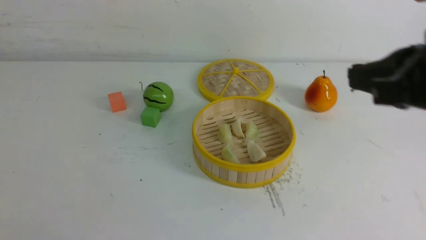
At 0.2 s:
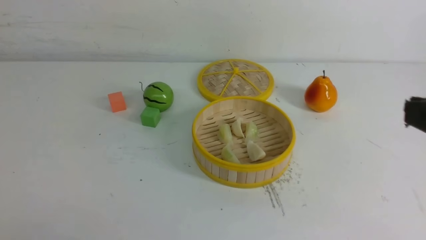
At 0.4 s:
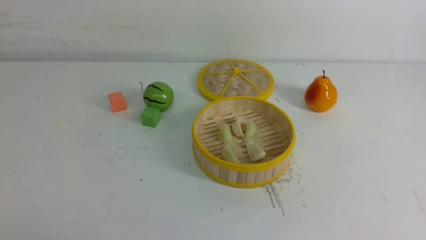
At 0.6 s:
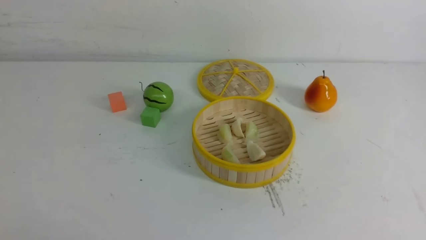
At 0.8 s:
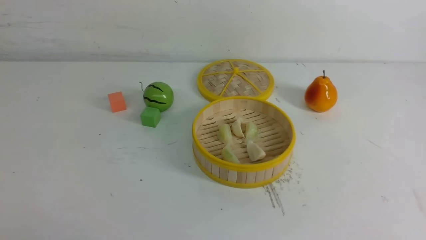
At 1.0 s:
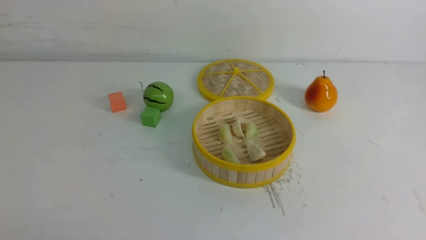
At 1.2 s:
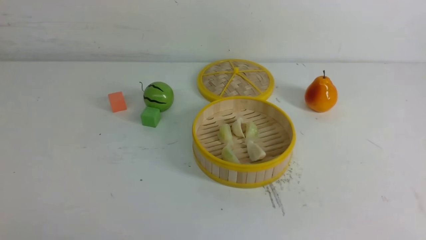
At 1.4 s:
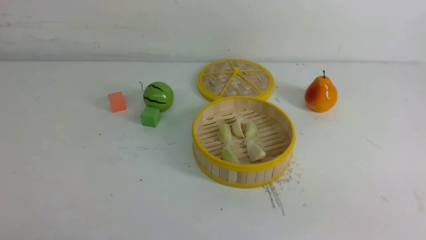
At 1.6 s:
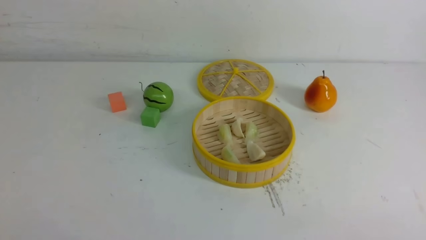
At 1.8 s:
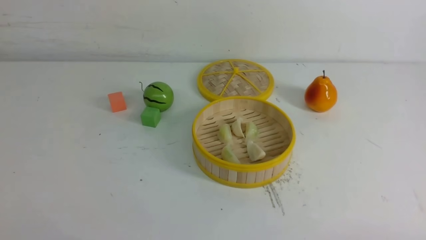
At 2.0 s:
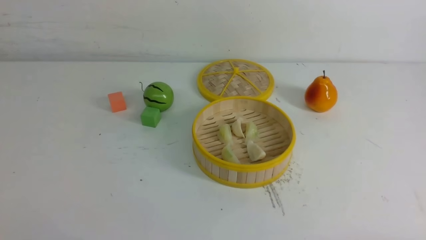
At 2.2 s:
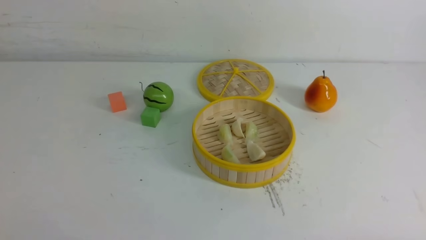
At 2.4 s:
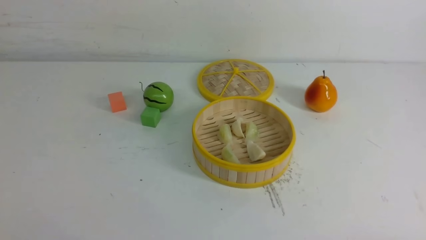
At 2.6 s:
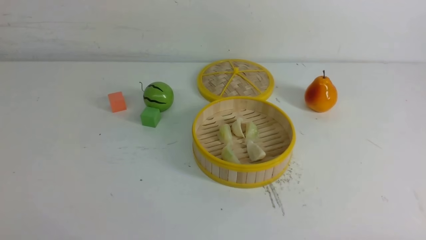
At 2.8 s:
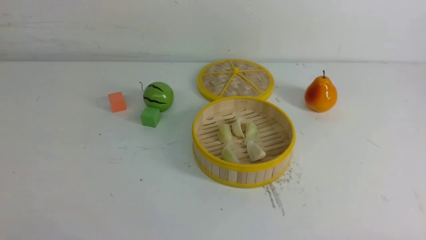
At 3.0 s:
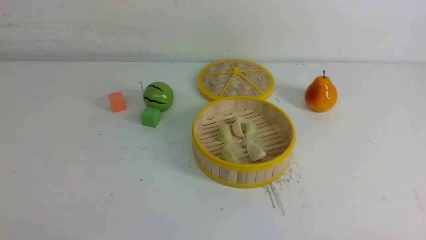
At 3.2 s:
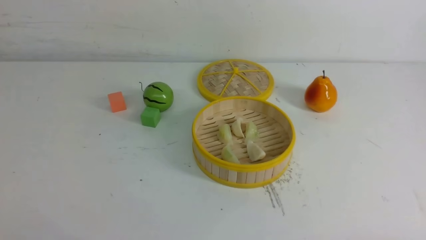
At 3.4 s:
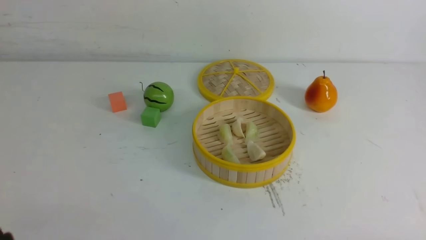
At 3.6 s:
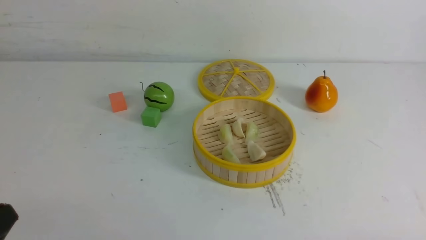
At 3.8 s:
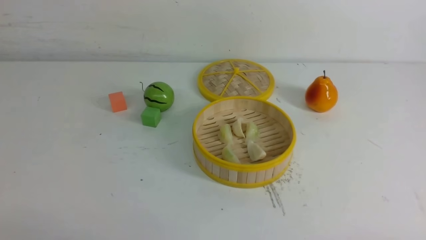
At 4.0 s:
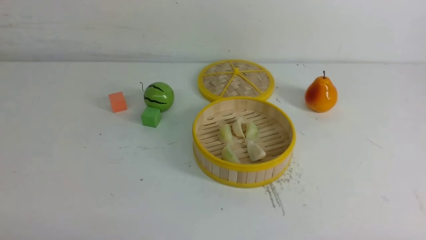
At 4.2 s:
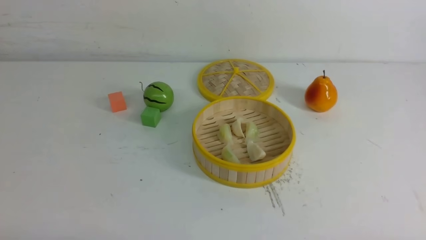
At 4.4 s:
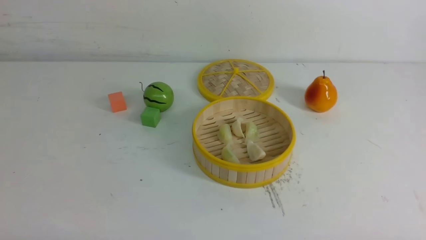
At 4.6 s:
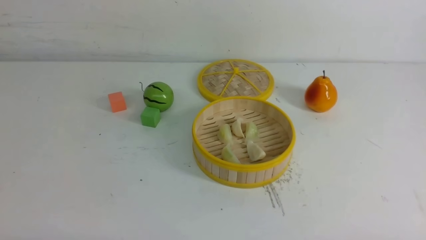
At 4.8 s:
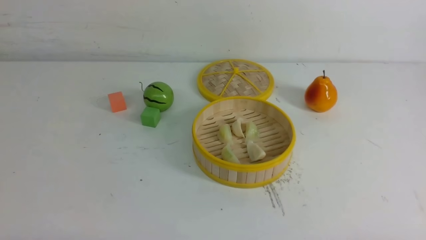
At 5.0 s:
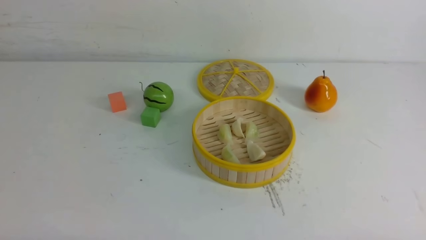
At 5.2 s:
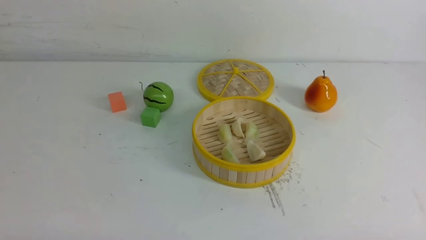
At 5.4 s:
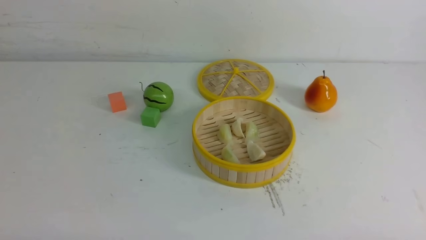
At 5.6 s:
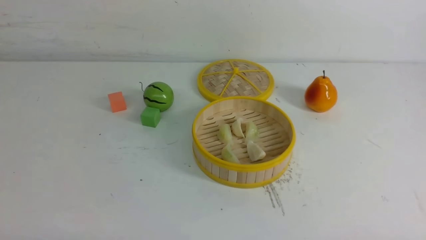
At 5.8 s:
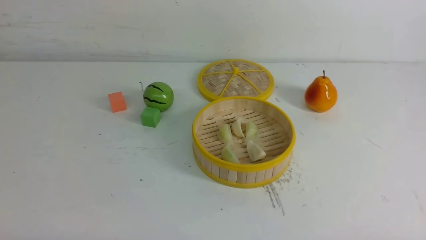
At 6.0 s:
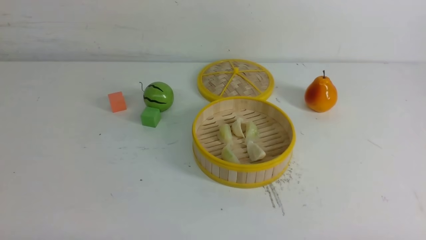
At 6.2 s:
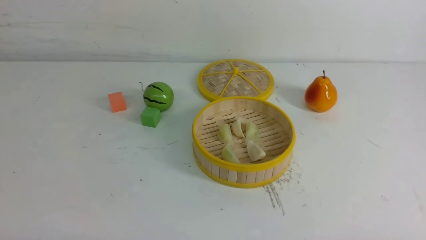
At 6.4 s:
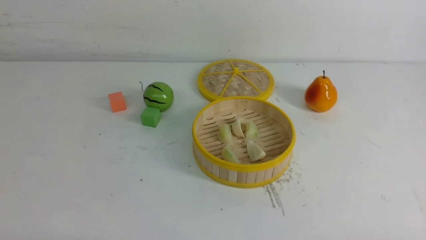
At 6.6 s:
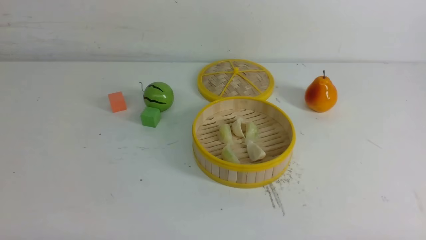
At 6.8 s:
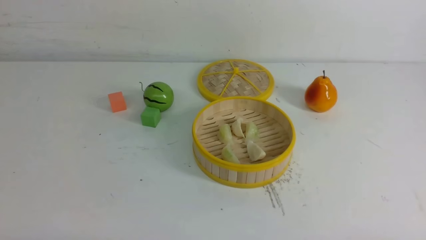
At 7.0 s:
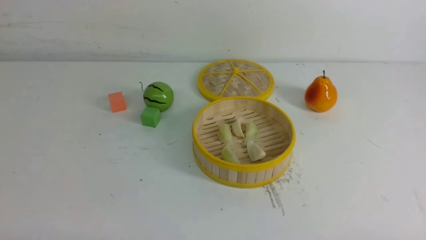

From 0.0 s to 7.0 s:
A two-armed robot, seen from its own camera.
Task of the whole recording: put the dumplings into the steamer on the white table.
From 0.0 s to 1.4 s: The right gripper is displaced downward, backward and to the right by some 20 cm.
From 5.6 s to 7.0 s: Neither gripper changes place.

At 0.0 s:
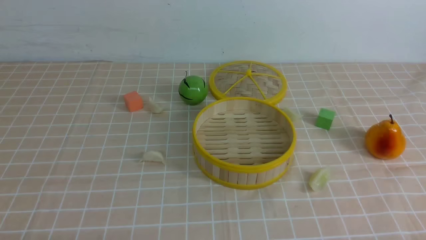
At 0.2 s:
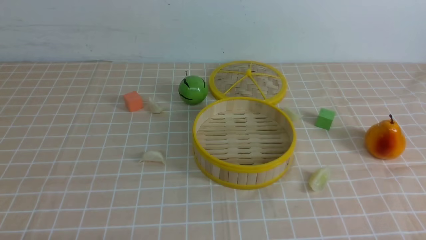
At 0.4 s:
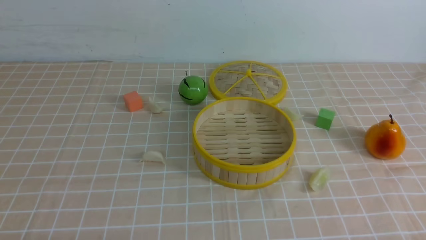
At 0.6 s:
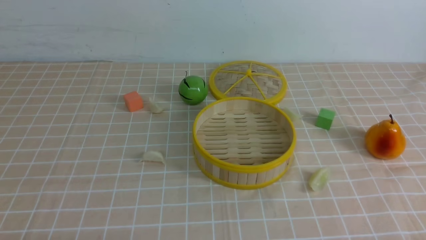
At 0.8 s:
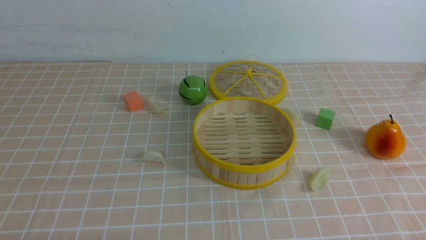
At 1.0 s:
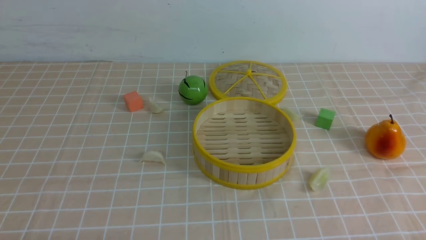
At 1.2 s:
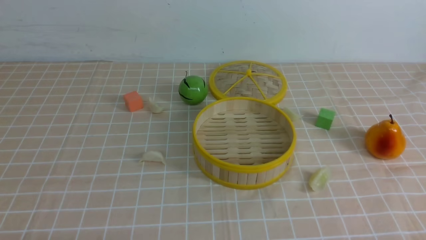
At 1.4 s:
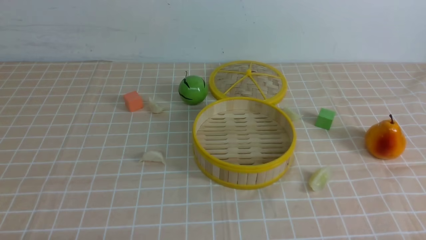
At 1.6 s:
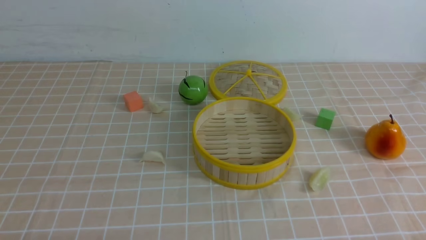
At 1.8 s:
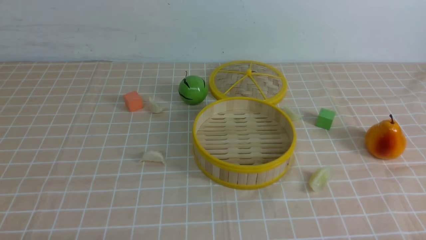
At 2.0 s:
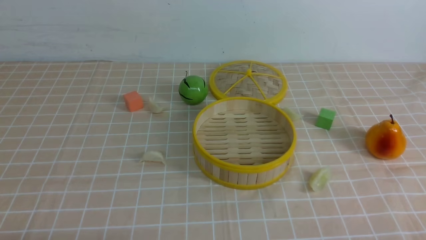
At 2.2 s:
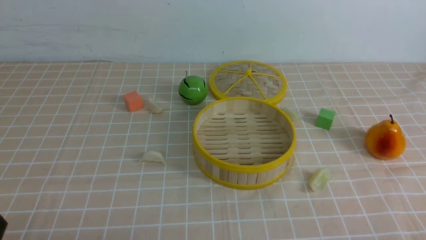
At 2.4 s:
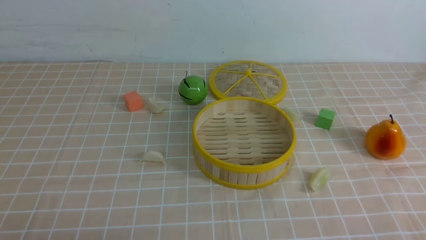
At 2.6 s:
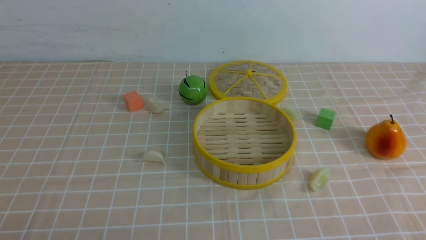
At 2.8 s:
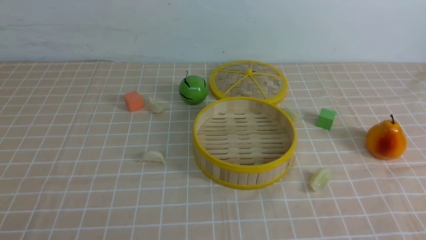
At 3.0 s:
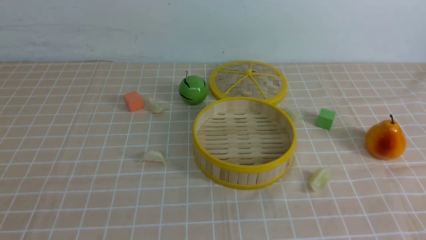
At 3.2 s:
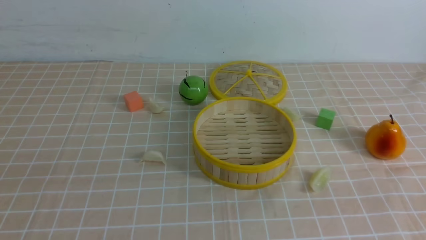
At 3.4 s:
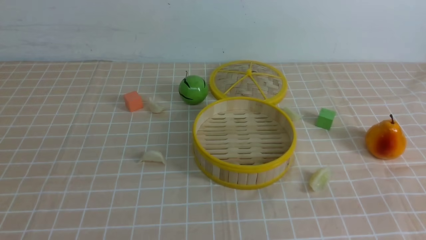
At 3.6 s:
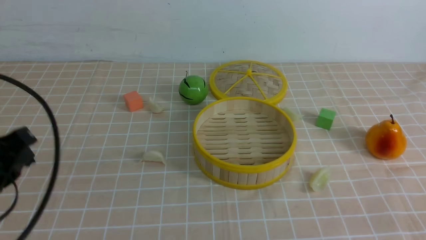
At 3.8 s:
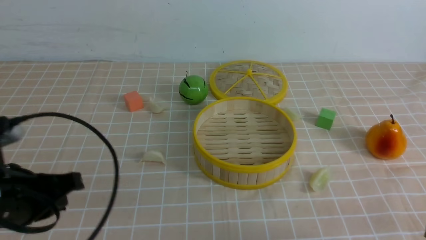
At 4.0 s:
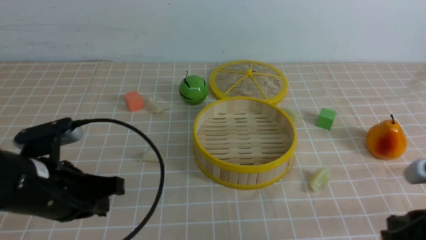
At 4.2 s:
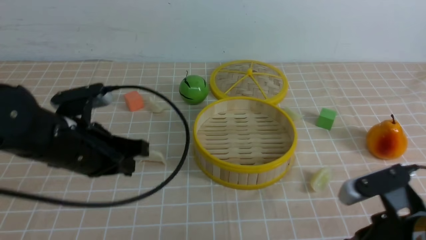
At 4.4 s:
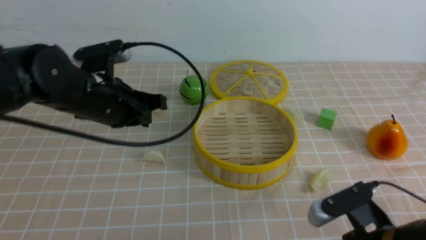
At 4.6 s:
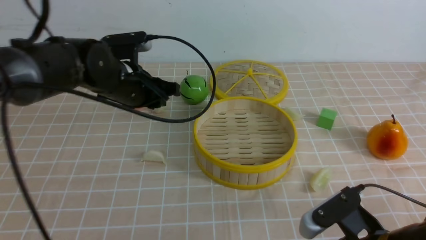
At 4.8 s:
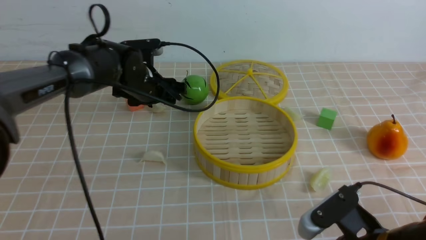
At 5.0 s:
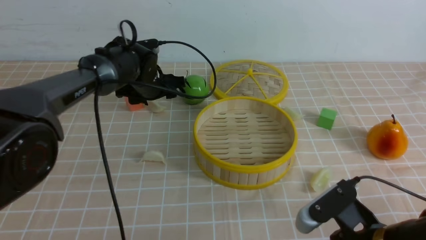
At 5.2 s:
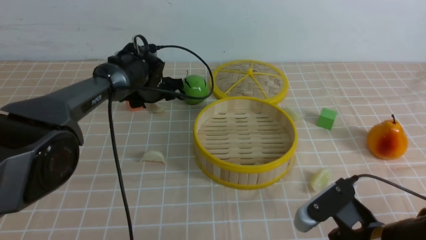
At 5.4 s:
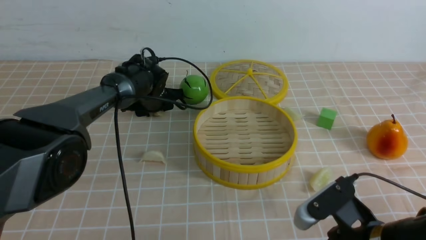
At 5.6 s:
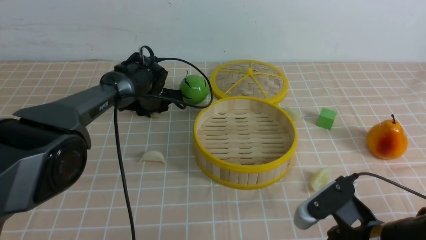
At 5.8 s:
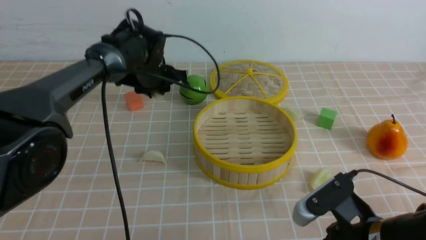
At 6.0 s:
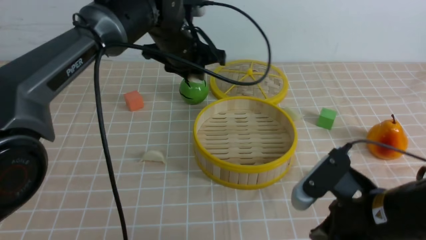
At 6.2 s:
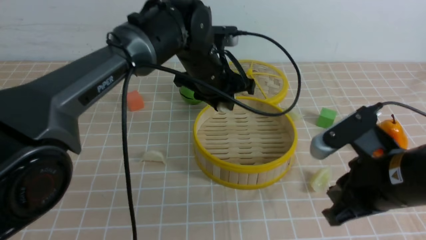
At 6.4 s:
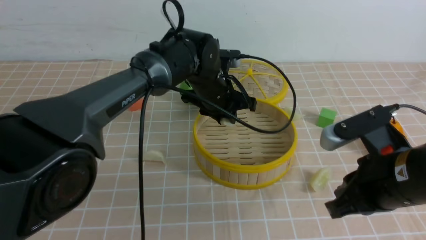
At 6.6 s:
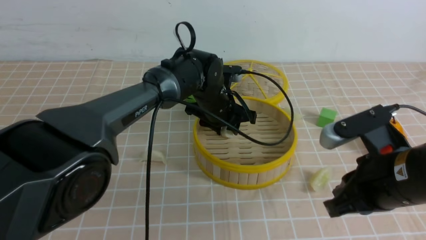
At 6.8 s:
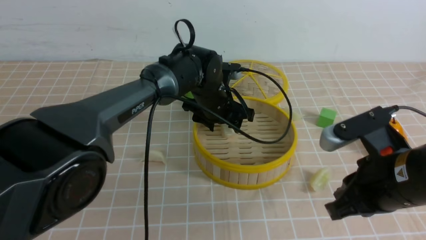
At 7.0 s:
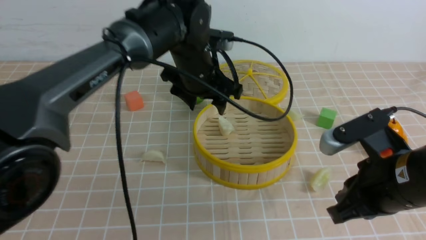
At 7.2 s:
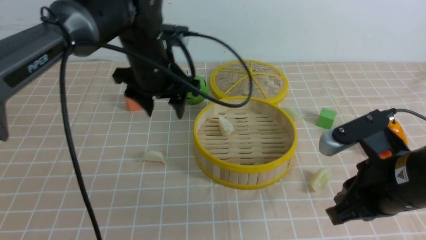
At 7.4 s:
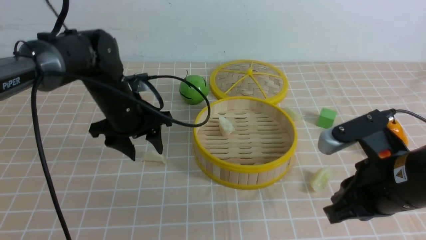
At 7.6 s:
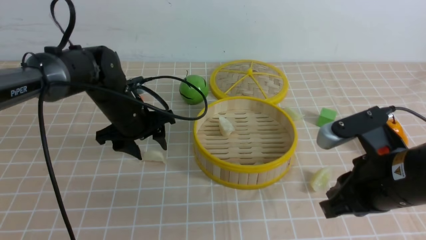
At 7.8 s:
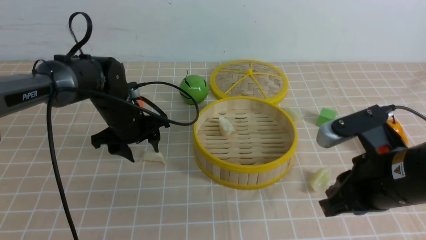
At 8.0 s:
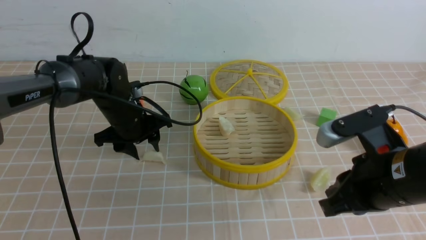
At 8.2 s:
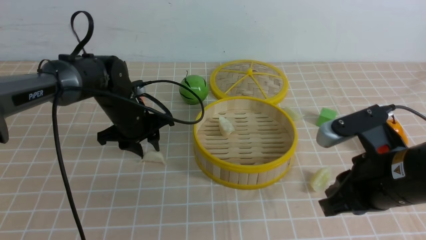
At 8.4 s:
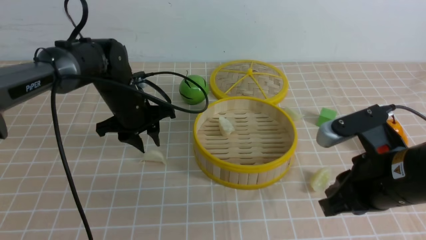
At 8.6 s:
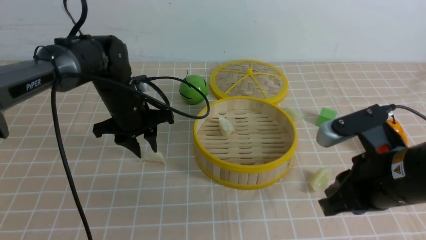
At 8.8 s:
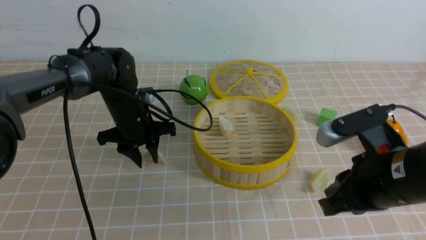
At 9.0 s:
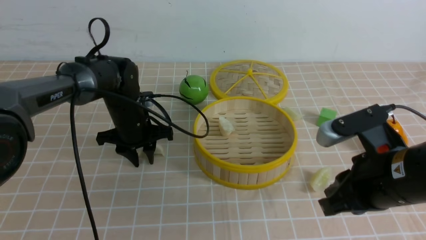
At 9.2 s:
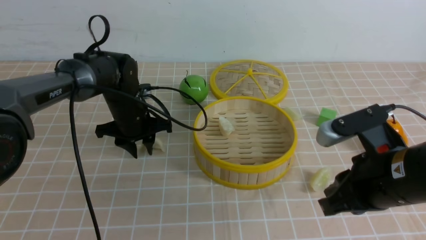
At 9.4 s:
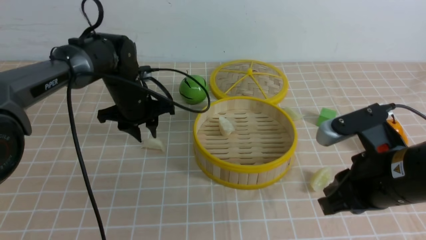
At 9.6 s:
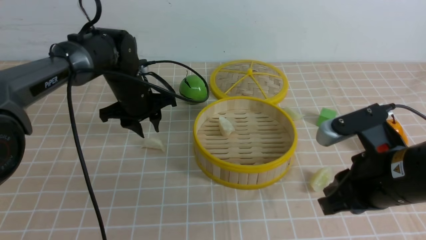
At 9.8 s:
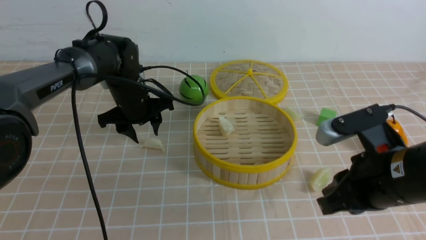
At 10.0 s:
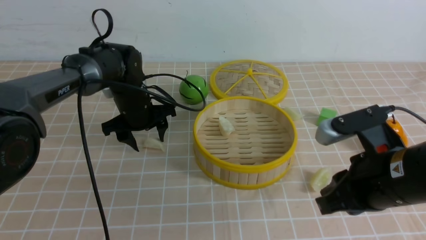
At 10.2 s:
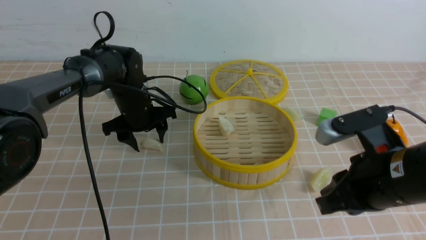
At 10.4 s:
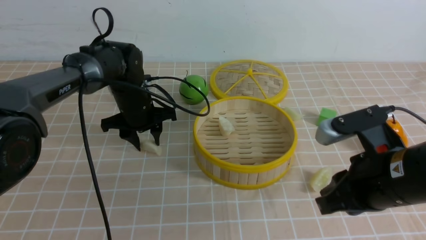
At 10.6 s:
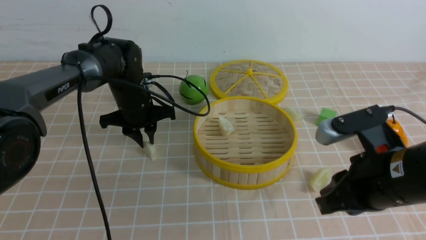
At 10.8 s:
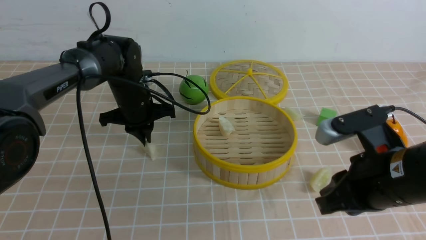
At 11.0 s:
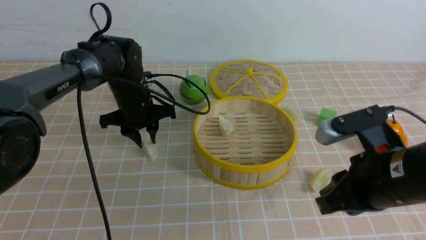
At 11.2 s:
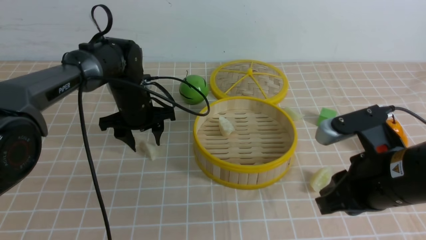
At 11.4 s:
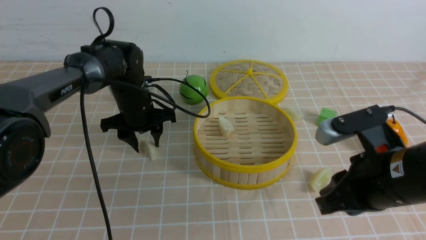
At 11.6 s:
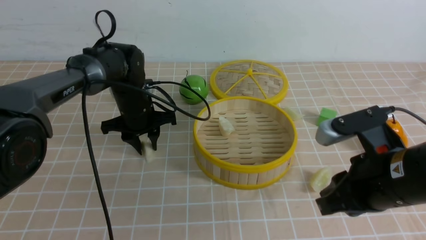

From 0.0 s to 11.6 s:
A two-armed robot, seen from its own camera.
Task of the whole recording: put the dumplings into the steamer on the table with the brown tablecloth.
Step, from 0.0 s to 5.4 s: use the left arm to grab a dumpling.
Step, from 5.8 s to 6.8 s: use the left arm to put the dumpling into the steamer.
From 0.0 s to 1.4 s: Both grippers stay about where they are.
From 2.8 s to 4.4 s: The right gripper moves forward, to the left and downward, approximately 20 cm. Meanwhile the left gripper moves forward, approximately 30 cm.
From 4.4 s to 5.8 s: The left gripper is displaced forward by some 15 cm, and opens and closes again.
From 5.8 s to 7.2 s: The right gripper is displaced upward by about 5 cm; the left gripper goes approximately 10 cm backward, travels to the right and back again, approximately 10 cm each way, and opens.
From 7.2 s to 8.8 s: The left gripper goes approximately 10 cm downward, and closes up.
From 8.8 s to 11.6 s: There are only small adjustments of the grippers.